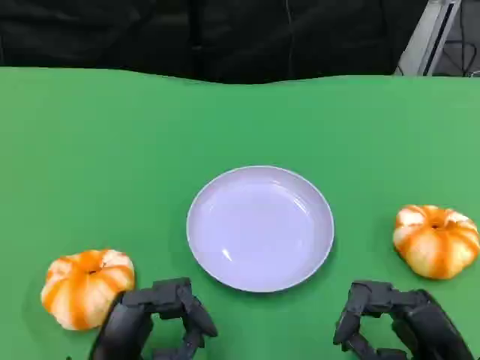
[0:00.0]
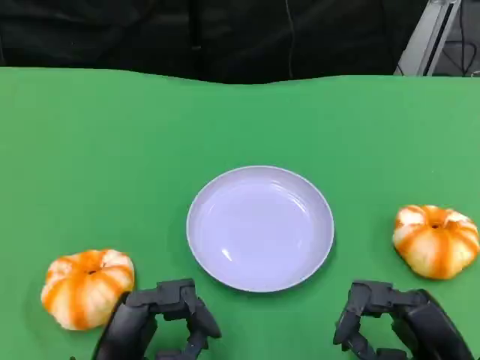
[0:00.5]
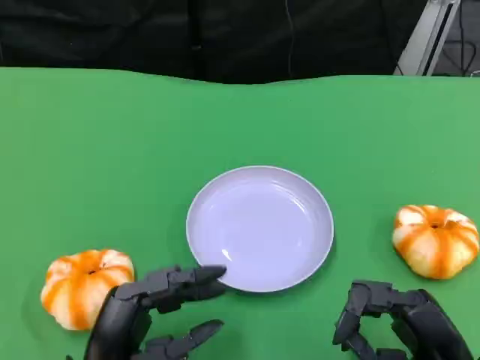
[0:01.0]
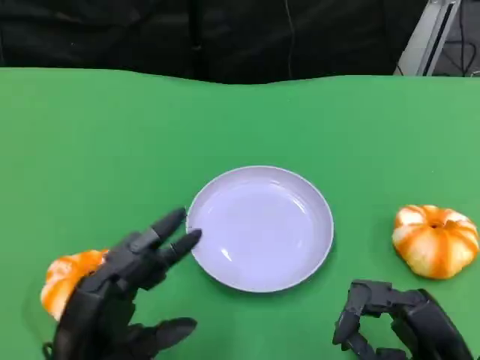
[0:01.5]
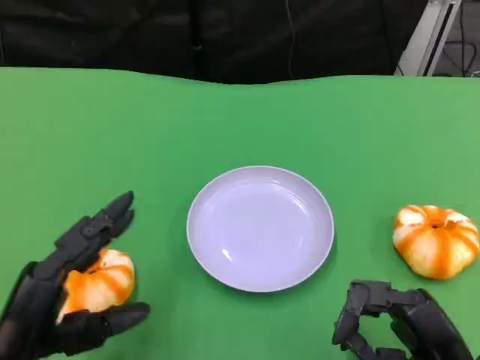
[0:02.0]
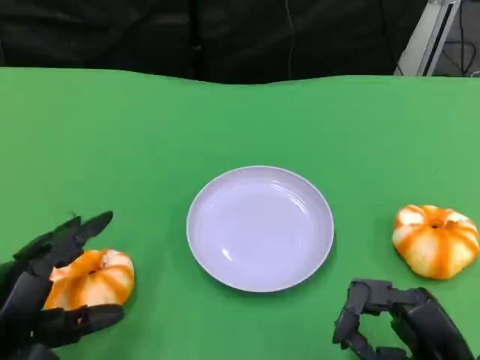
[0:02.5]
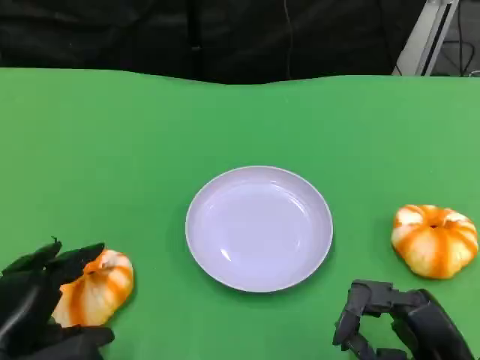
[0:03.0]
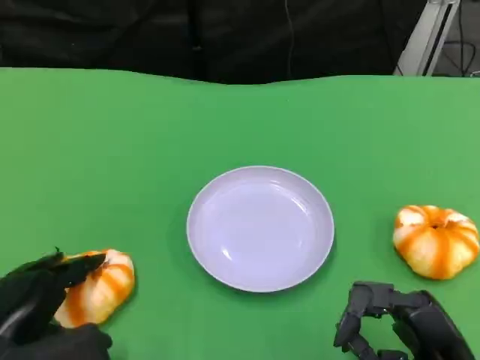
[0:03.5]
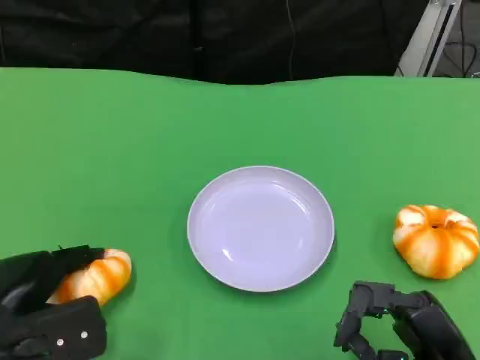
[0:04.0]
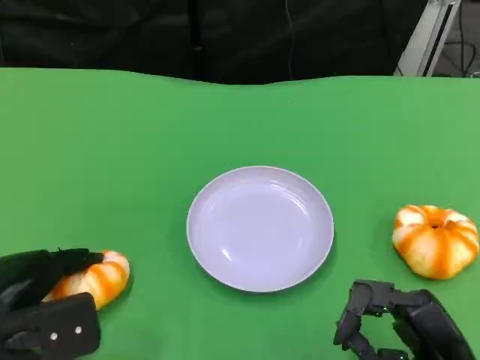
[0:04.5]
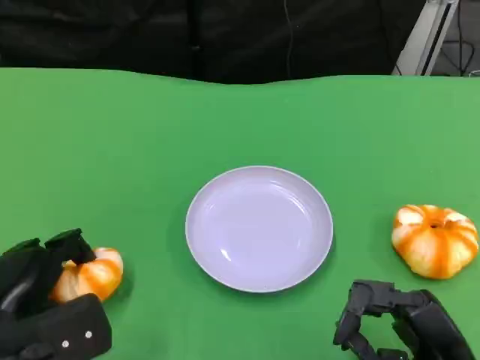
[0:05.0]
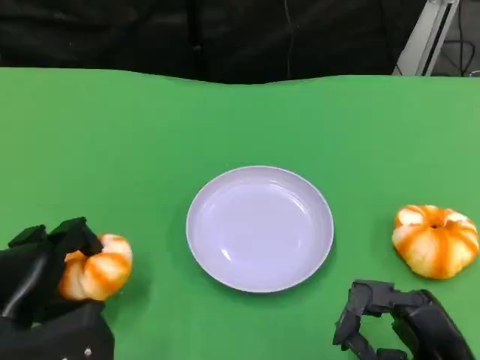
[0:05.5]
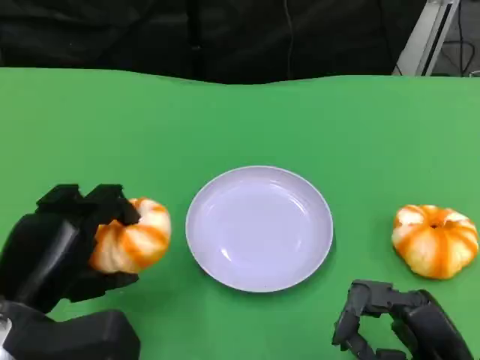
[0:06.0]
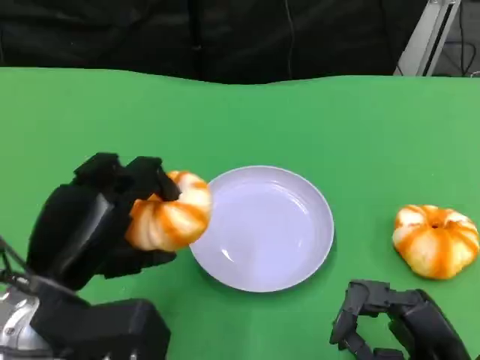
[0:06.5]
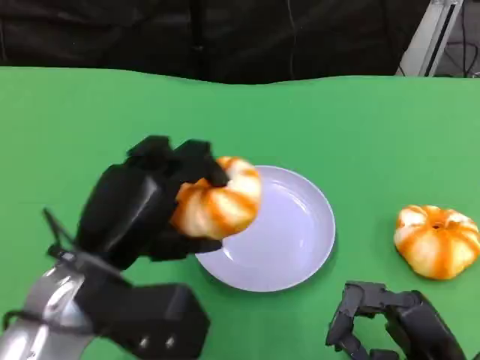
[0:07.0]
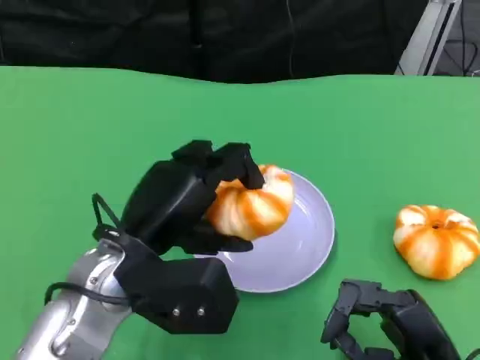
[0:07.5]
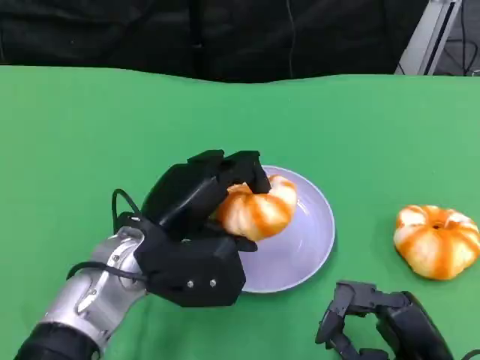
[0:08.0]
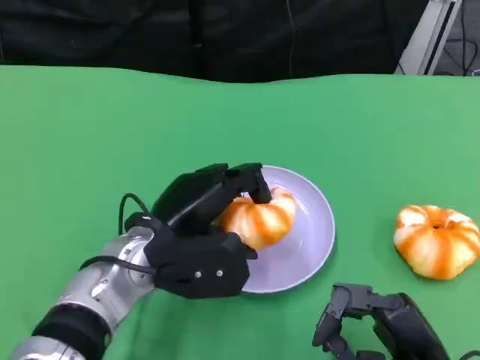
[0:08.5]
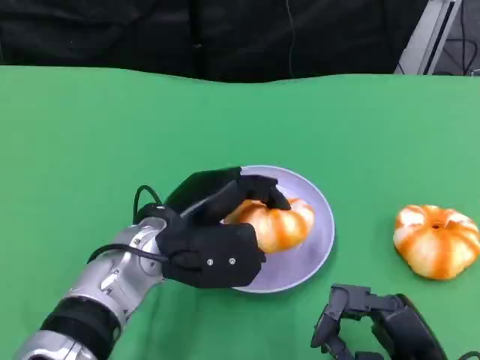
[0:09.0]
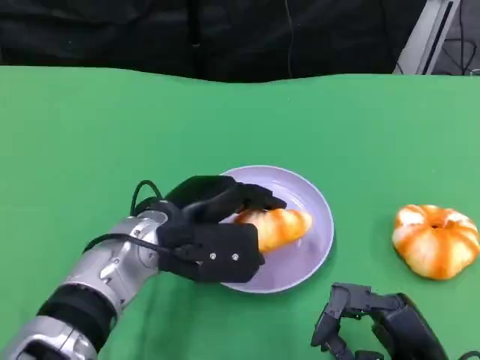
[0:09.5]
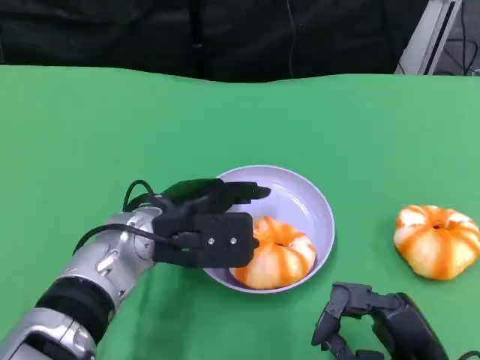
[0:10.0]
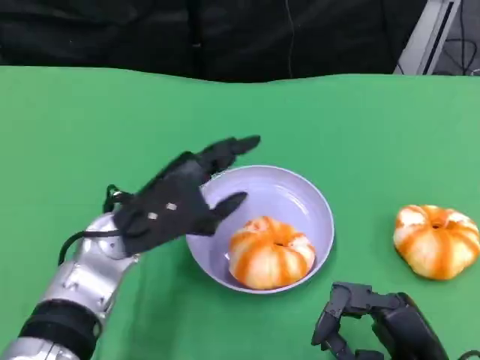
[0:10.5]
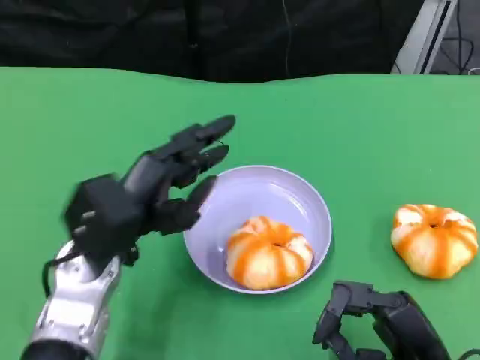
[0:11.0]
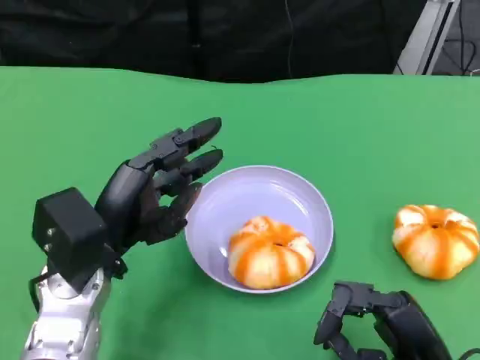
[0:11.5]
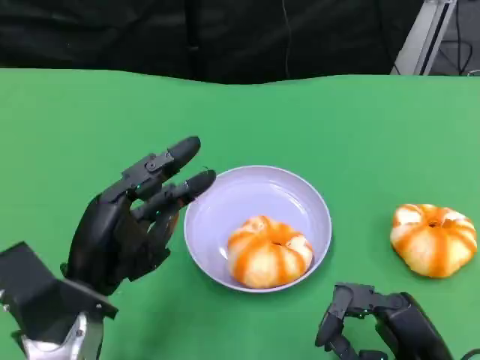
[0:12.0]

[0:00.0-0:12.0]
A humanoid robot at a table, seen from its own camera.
Task of the whole recording: Grasp the bread from the table and place it into the plate.
0:00.0 to 0:02.0: The left hand heads to the left, covering approximately 5 cm.
0:02.0 to 0:04.0: The left hand ends up about 5 cm from where it was.
0:04.0 to 0:06.0: The left hand changes place by about 5 cm.
0:06.0 to 0:08.0: The left hand is displaced to the right and forward by some 15 cm.
0:10.0 to 0:12.0: The left hand moves backward and to the left, some 10 cm.

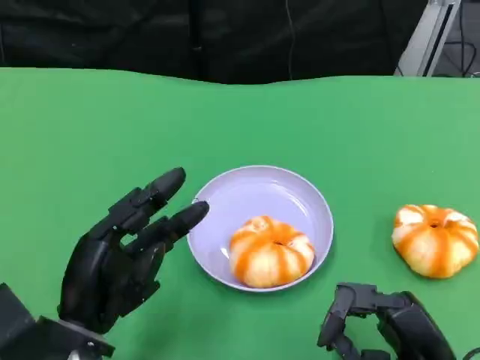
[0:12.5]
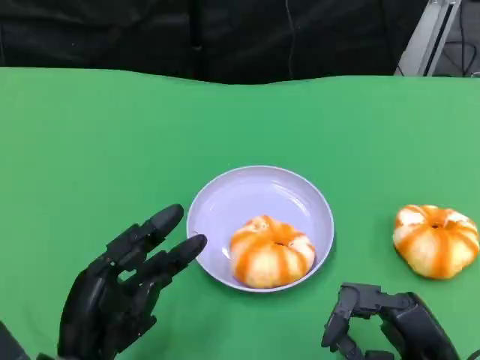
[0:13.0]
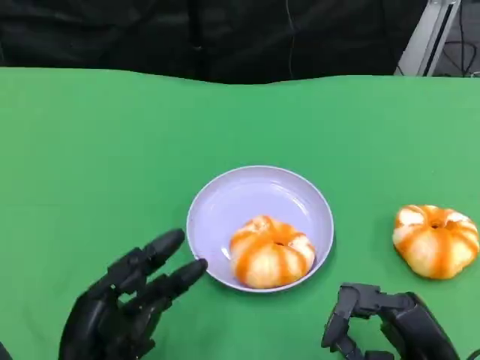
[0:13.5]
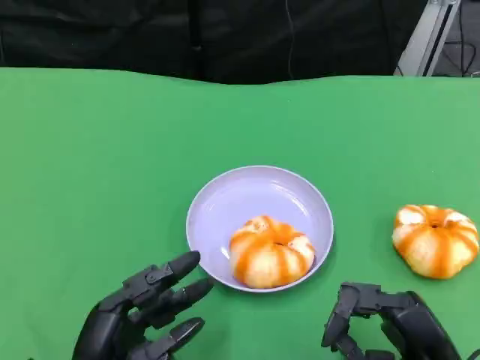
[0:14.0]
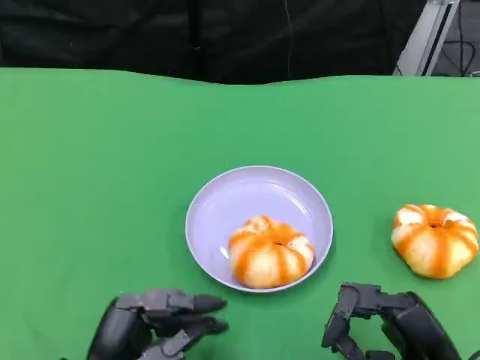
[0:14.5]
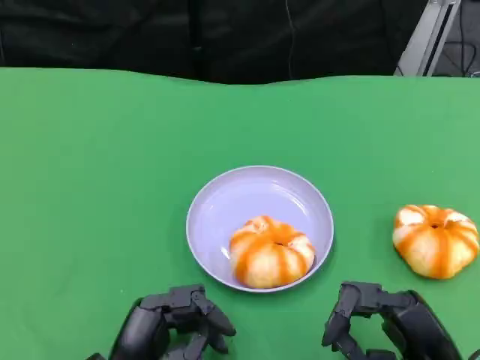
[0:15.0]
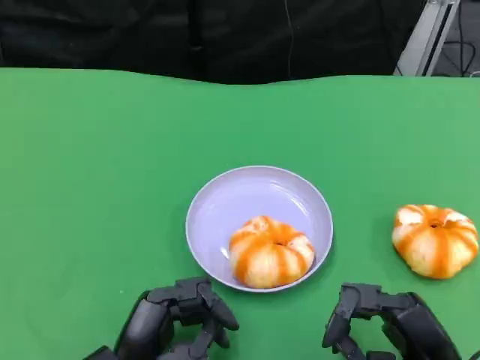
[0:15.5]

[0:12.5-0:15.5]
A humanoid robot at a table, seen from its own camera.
Task of the whole recording: Grasp the bread from the table and place it into the plate.
0:12.5 to 0:14.0: The left hand changes place by roughly 5 cm.
0:14.0 to 0:15.5: There are only small adjustments of the hands.

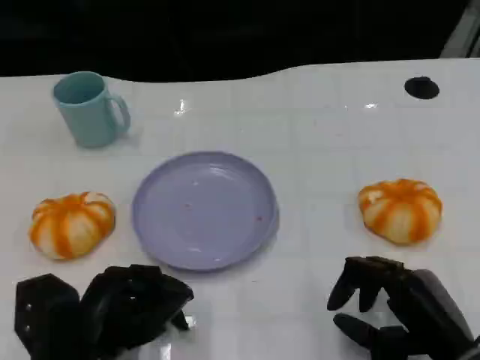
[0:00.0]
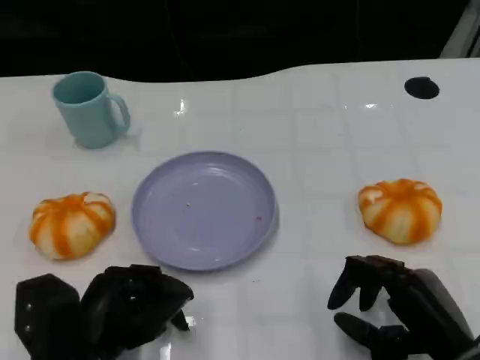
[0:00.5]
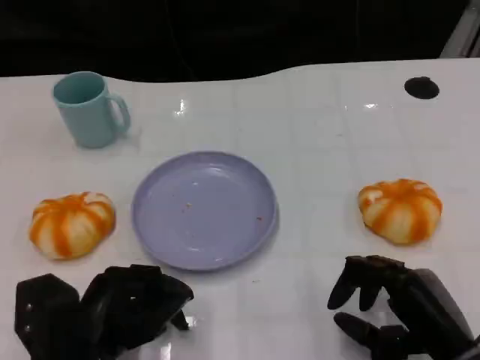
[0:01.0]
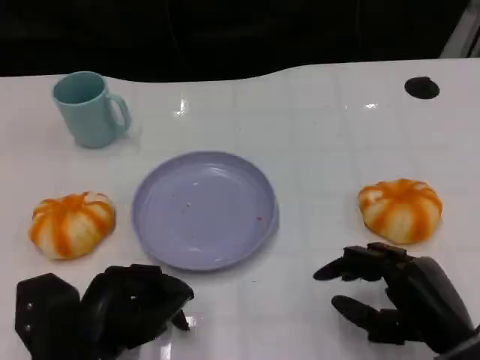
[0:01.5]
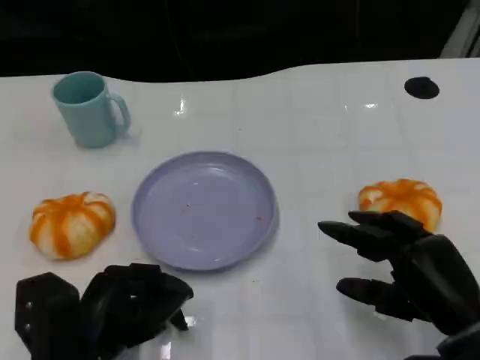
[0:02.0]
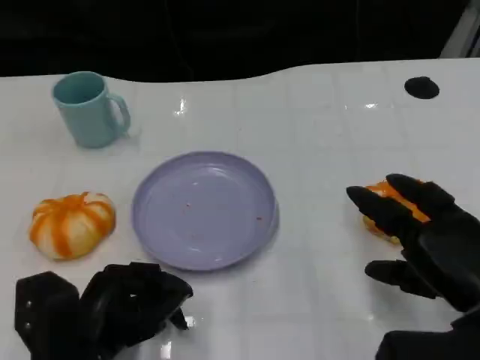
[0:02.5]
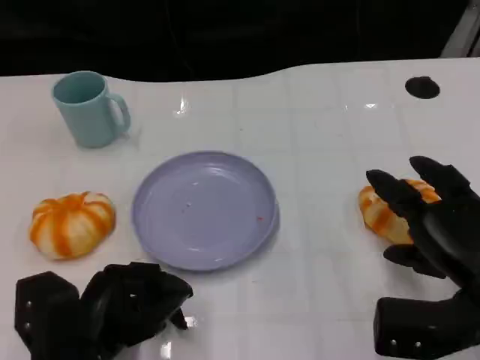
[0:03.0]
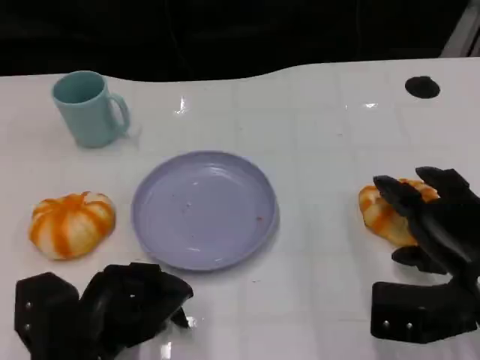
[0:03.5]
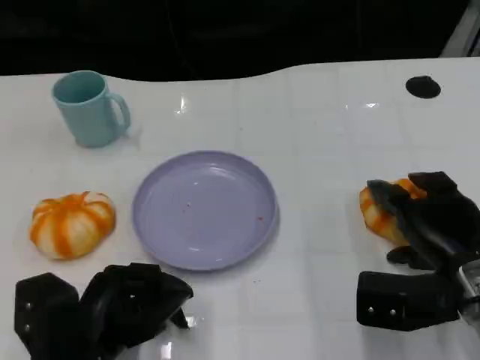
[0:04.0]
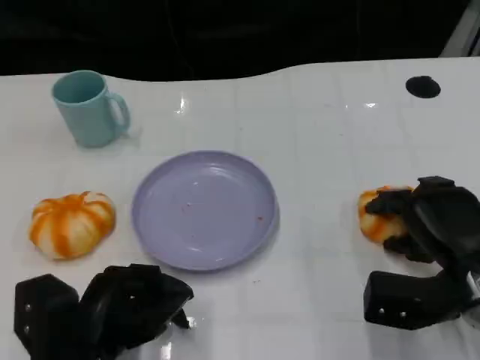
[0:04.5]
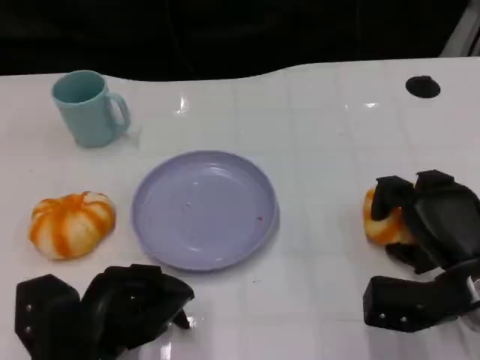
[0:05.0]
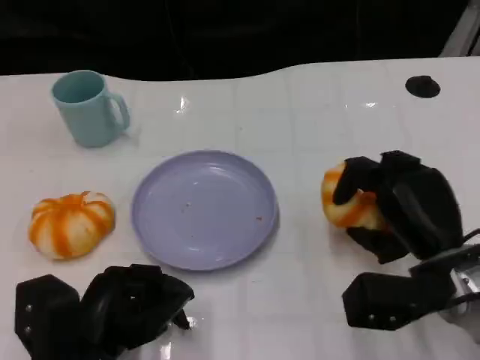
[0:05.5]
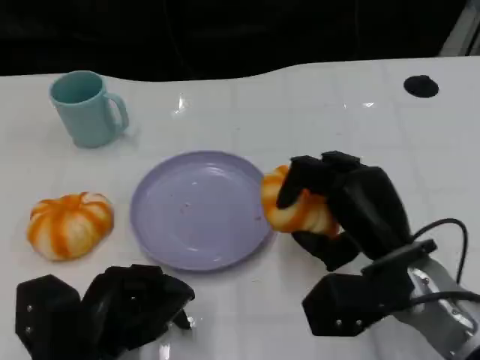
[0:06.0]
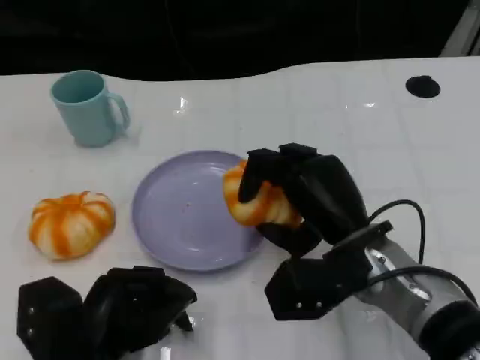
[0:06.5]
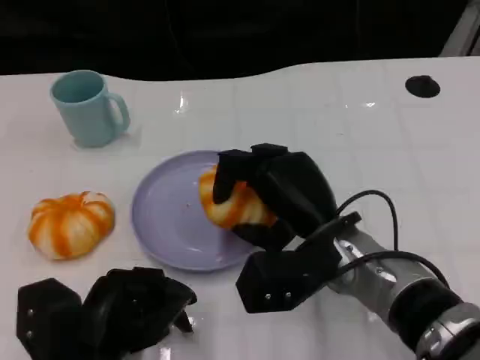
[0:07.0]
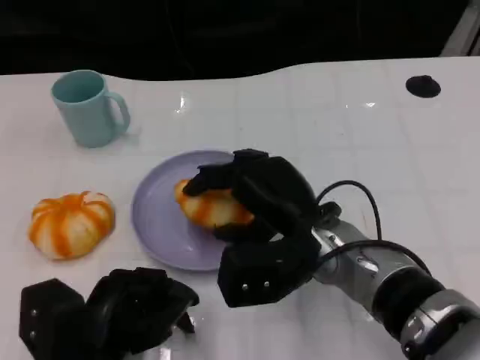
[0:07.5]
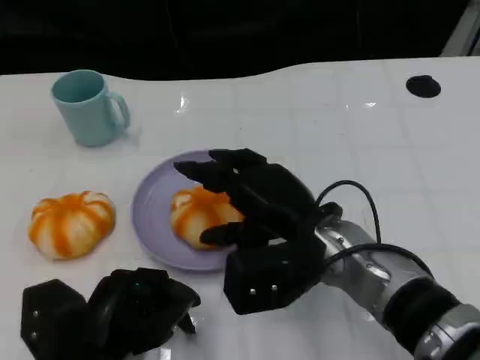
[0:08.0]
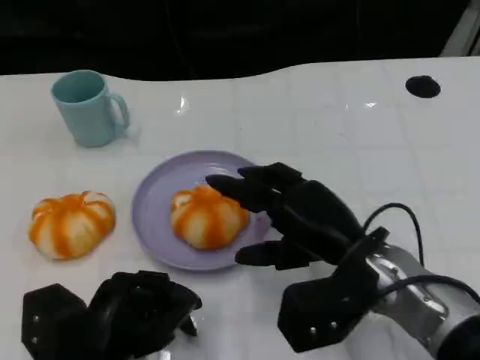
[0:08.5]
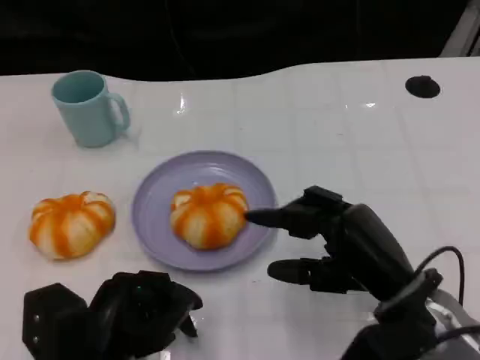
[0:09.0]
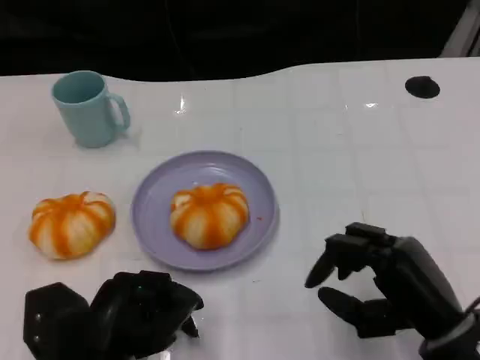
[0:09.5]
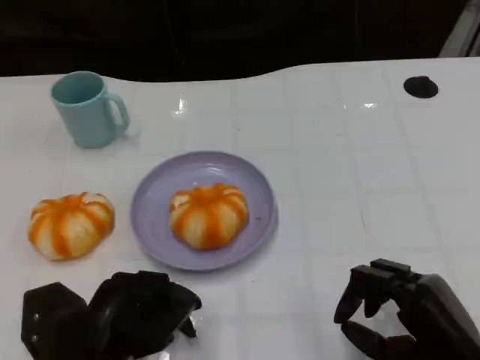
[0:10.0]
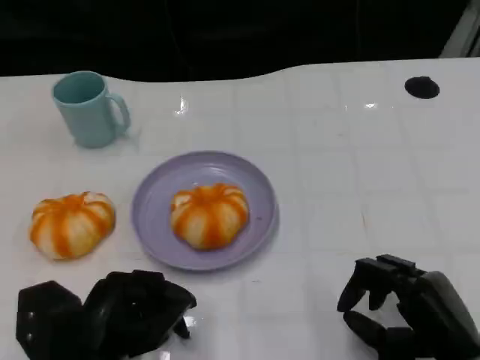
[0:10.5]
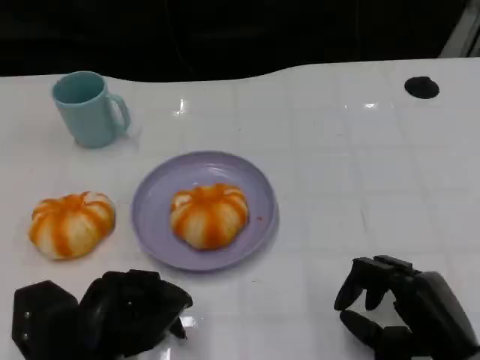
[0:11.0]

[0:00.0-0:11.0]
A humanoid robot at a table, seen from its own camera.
Task of the whole recording: Grasp the bread from the table and place it into the plate.
0:00.0 to 0:02.0: The hands make only small movements.
0:02.0 to 0:03.5: The right hand moves about 5 cm.
0:05.5 to 0:07.5: The right hand travels to the left by some 10 cm.
0:07.5 to 0:09.0: The right hand goes about 10 cm to the right and backward.
0:09.0 to 0:11.0: The right hand is displaced to the right by approximately 5 cm.
